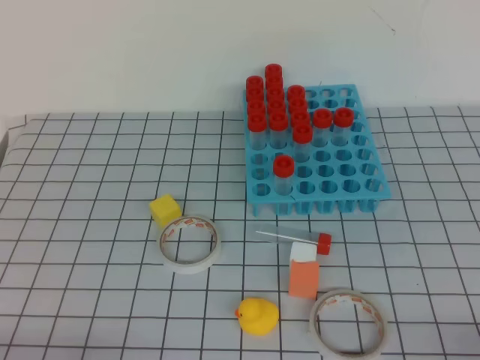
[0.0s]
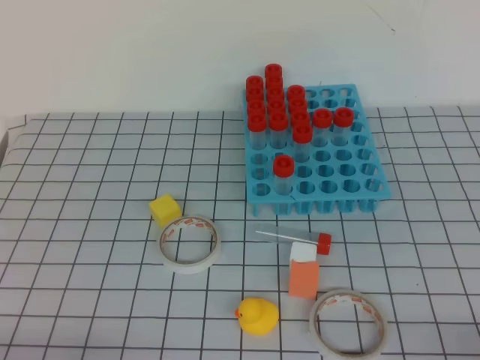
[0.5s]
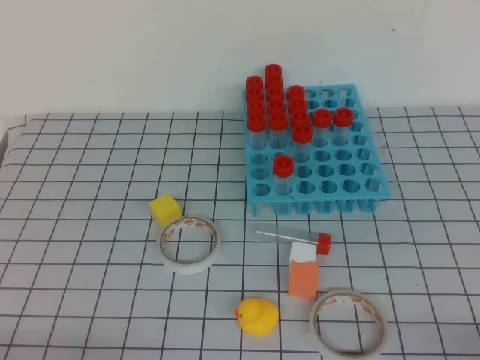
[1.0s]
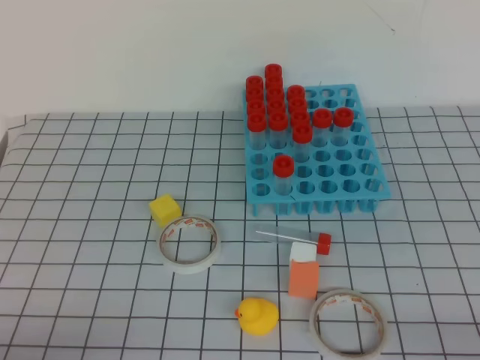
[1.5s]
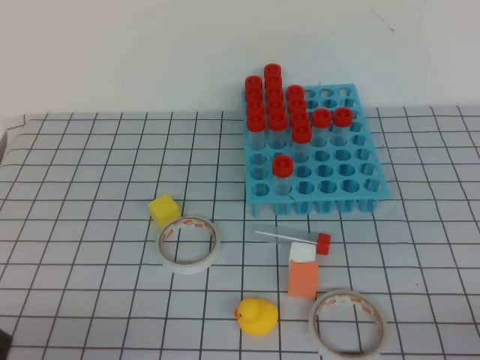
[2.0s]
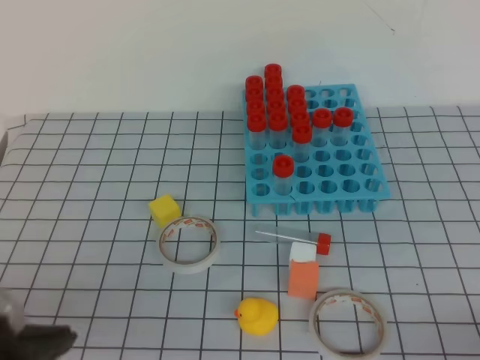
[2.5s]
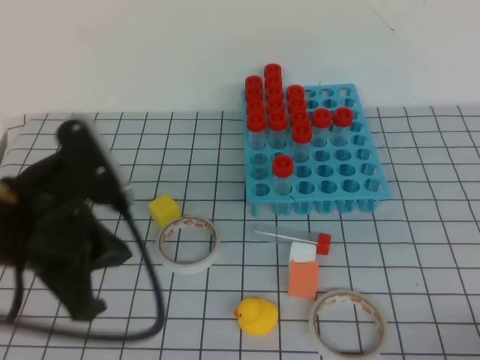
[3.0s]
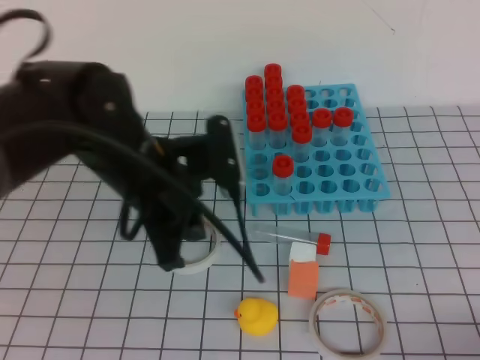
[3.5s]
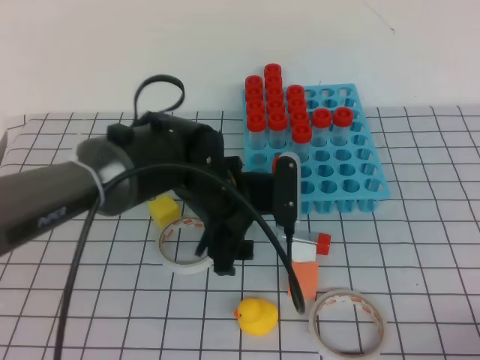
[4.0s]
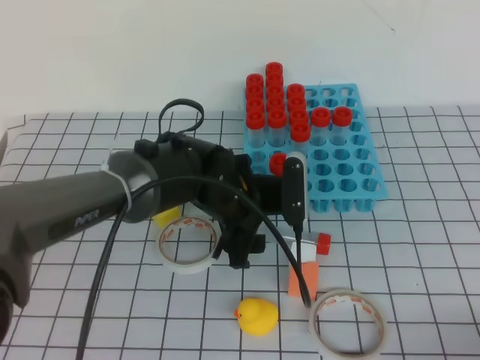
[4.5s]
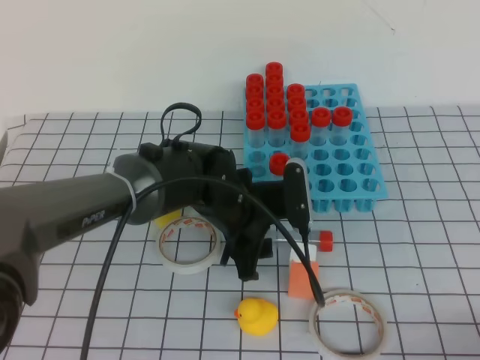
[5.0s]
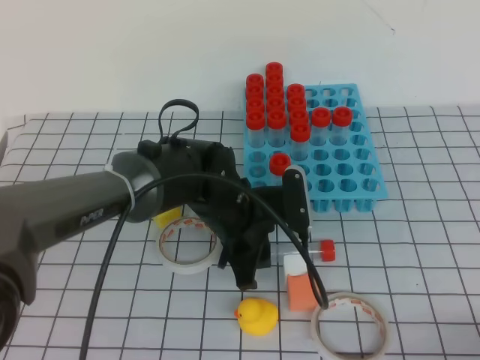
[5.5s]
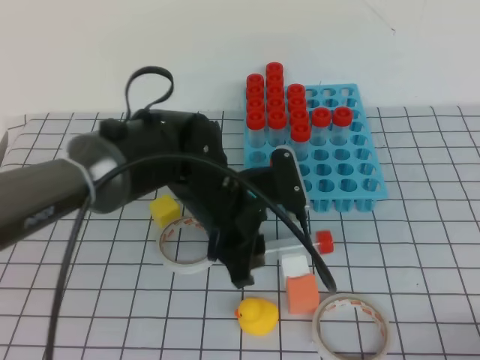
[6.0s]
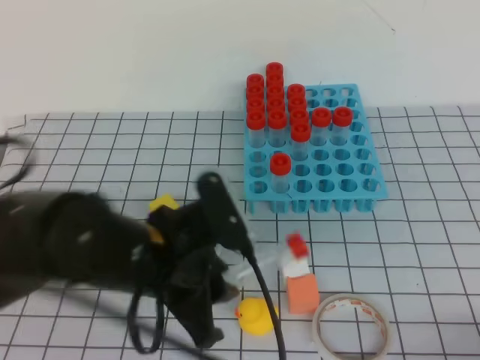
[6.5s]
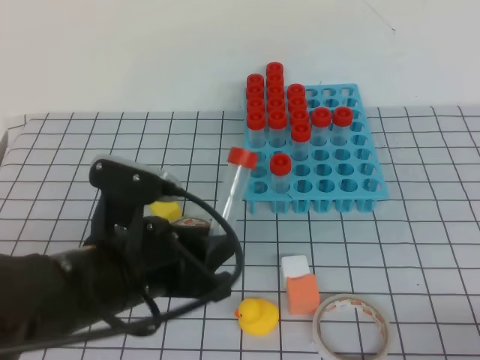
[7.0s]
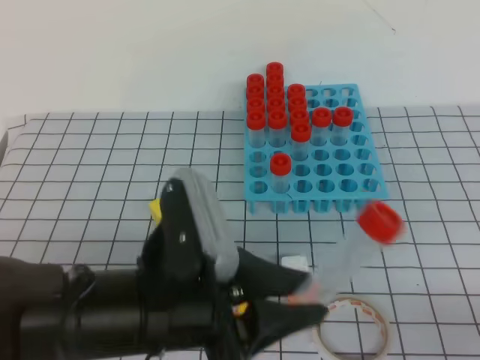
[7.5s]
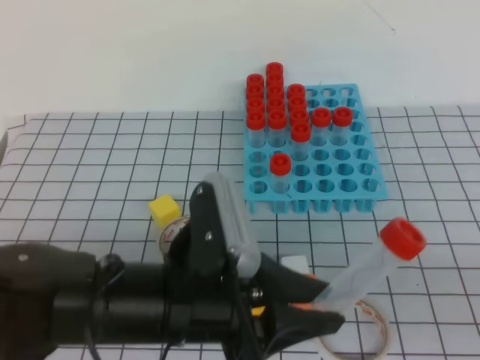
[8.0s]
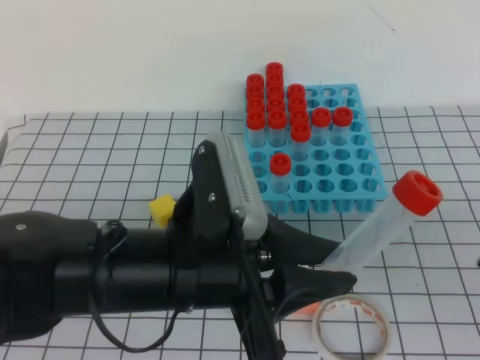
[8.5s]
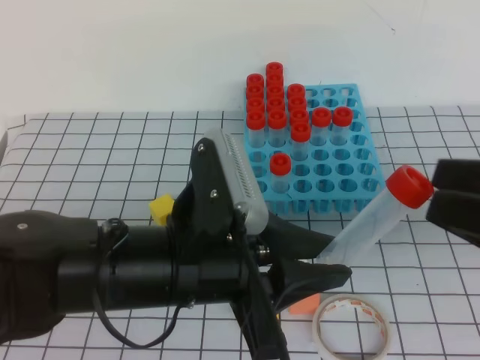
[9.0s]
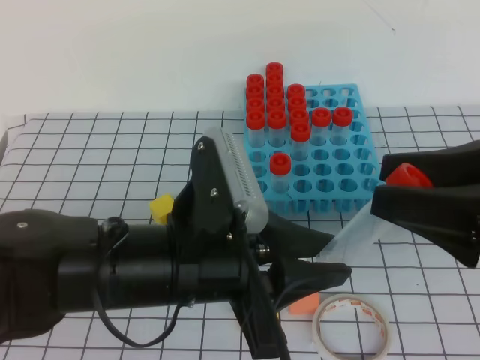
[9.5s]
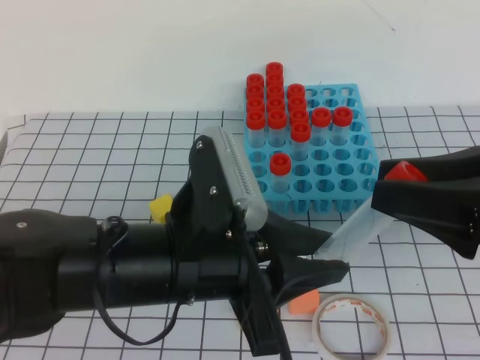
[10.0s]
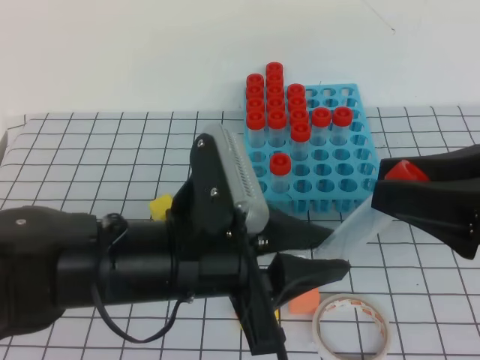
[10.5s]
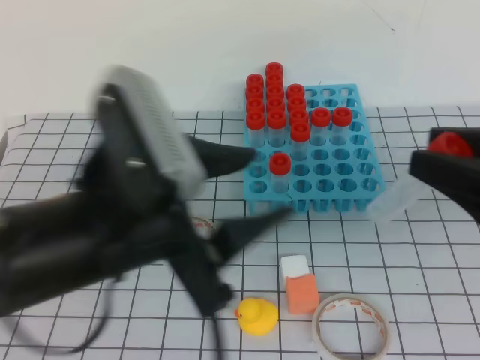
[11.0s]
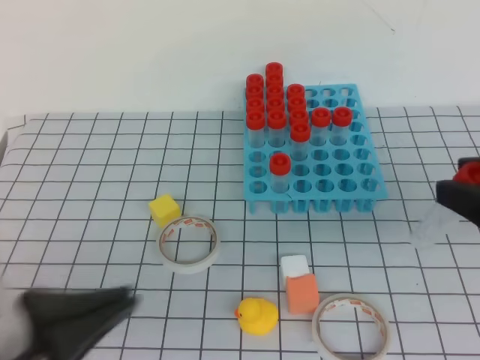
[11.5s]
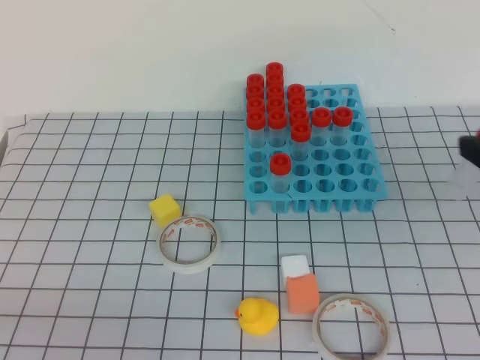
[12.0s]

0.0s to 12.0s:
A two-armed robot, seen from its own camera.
2.0s to 4.0s: The left gripper goes some 35 cm forward and to the right, and opens.
4.0s to 6.0s: The left gripper closes up.
6.0s to 8.0s: The left gripper is displaced backward by some 15 cm, while the right gripper goes about 5 cm upward, and opens its fingers.
8.0s to 10.0s: The right gripper moves forward, upward and to the left, some 15 cm, and opens and closes again.
10.0s to 12.0s: The right gripper ends up about 5 cm from where it was. The left gripper travels to the left and backward by about 25 cm, and closes.

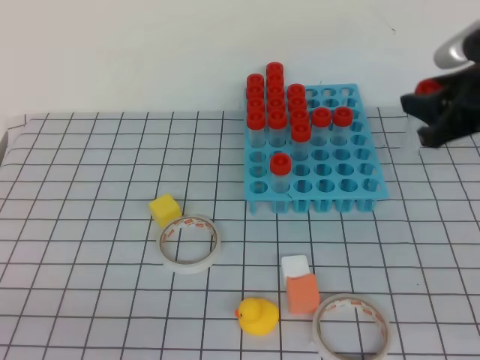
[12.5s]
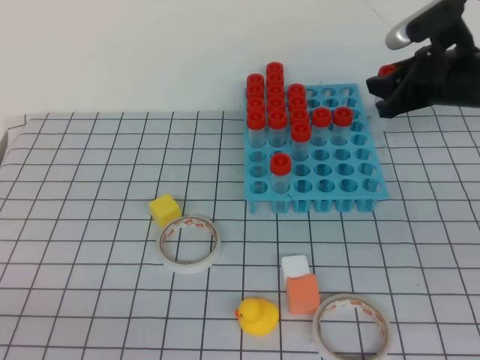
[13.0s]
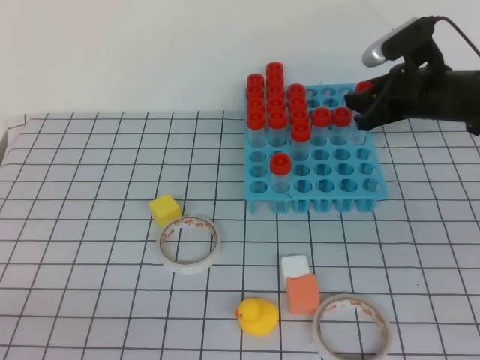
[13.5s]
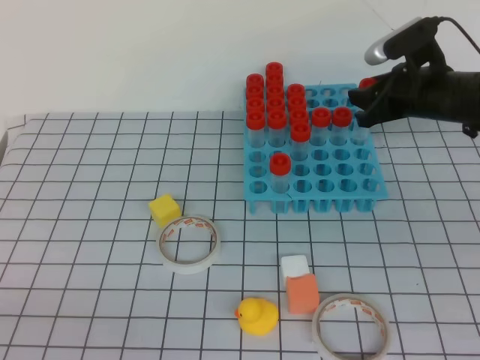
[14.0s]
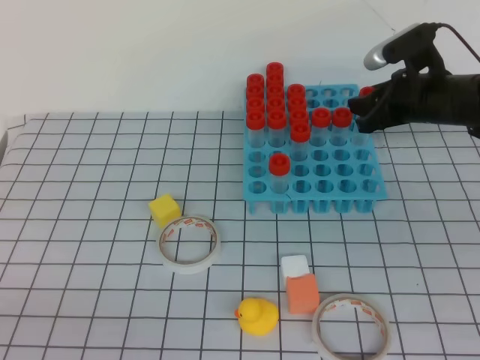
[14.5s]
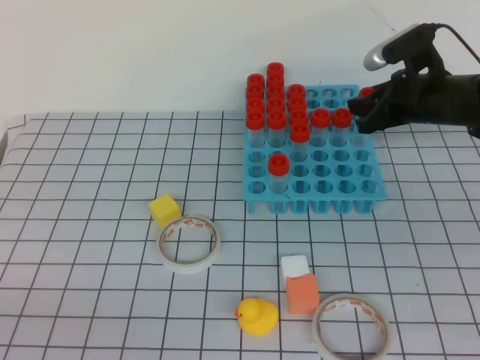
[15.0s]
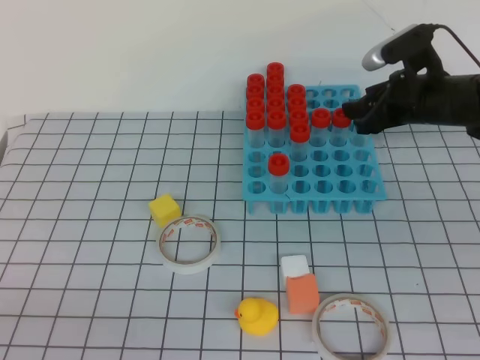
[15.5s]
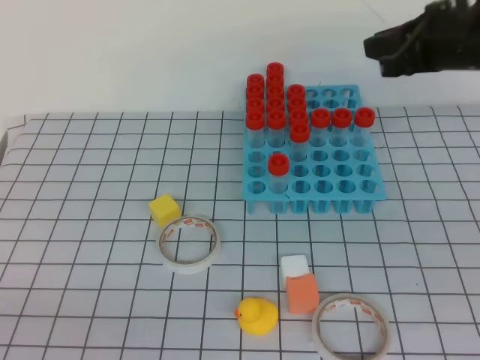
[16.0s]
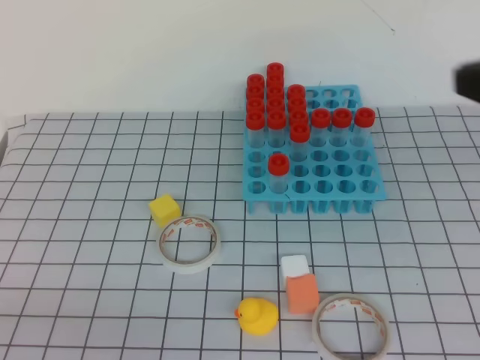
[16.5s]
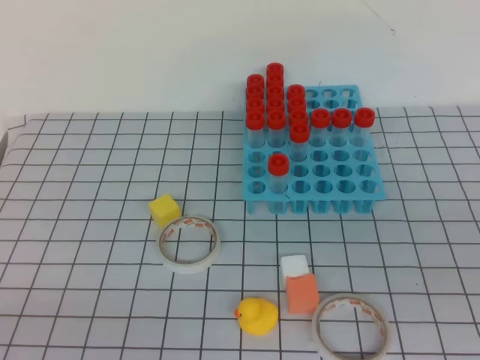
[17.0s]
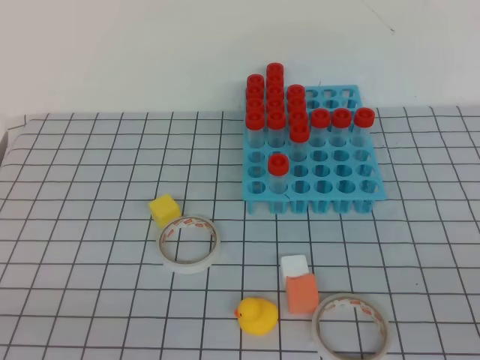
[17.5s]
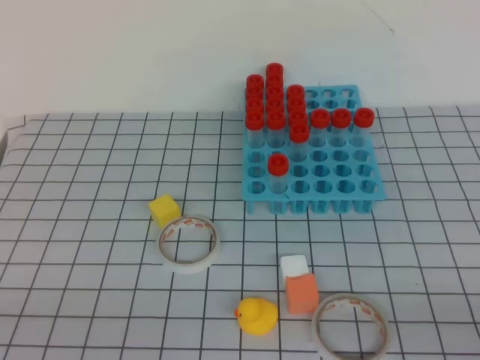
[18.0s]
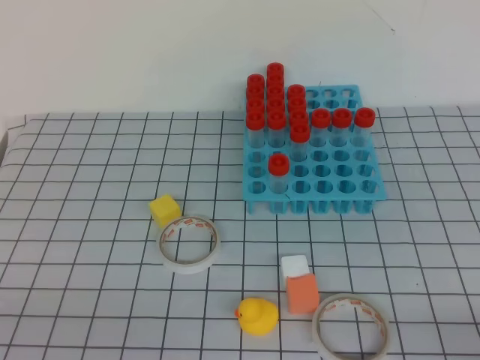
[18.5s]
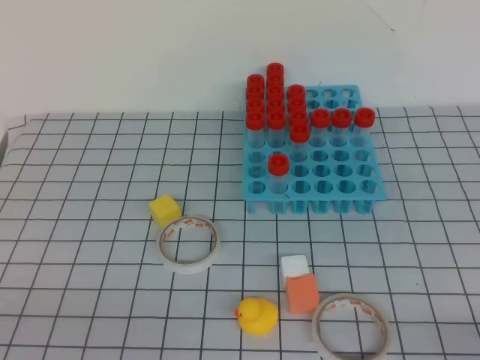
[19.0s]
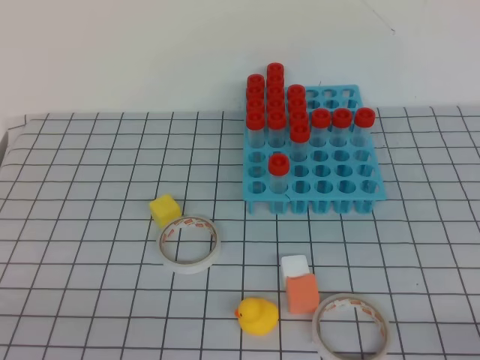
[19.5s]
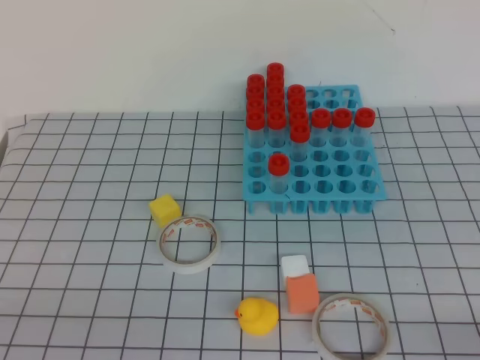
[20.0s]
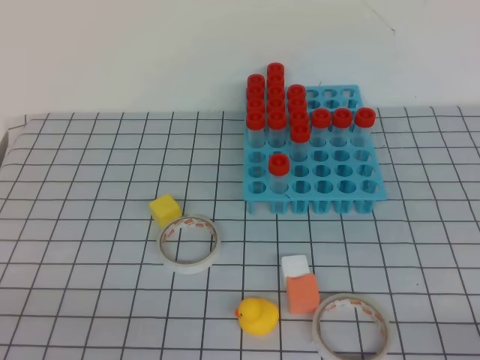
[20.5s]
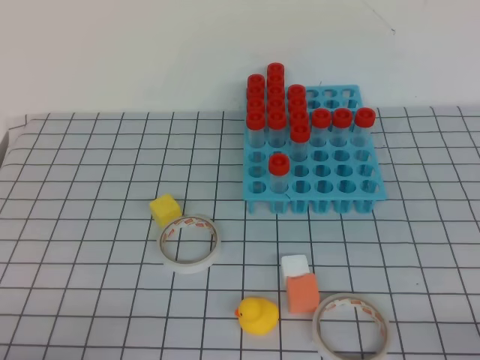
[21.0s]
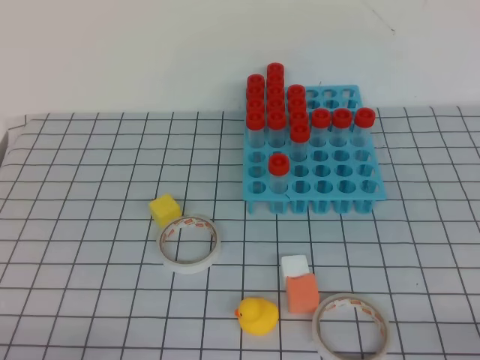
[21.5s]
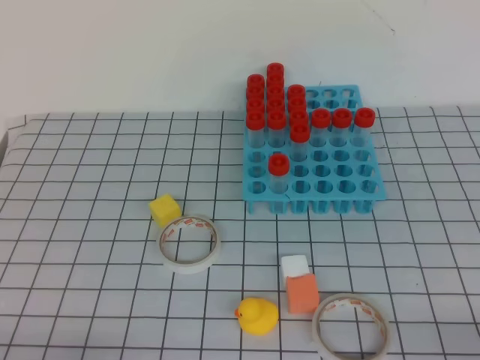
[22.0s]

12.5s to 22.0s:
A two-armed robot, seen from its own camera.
12.5s to 14.5s: The right gripper goes some 15 cm forward and downward.
14.5s to 16.5s: The right gripper shifts roughly 30 cm backward and upward, and closes.
16.5s to 18.0s: The right gripper goes approximately 25 cm backward and downward.
